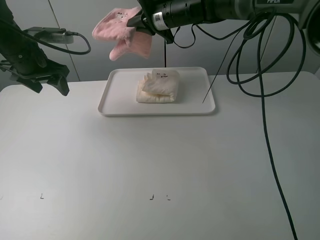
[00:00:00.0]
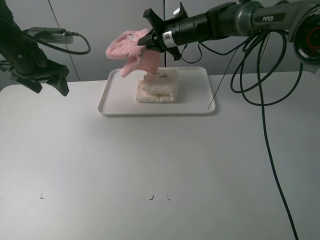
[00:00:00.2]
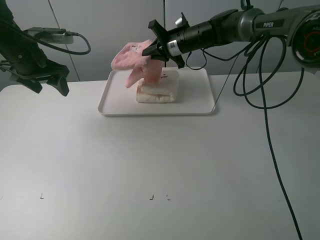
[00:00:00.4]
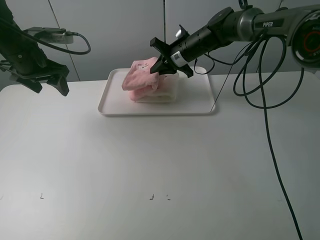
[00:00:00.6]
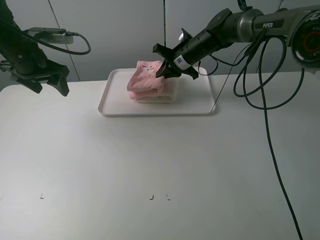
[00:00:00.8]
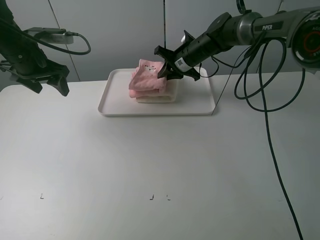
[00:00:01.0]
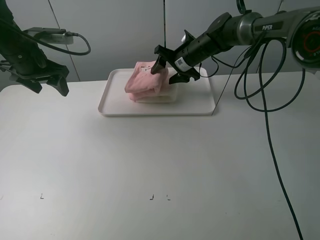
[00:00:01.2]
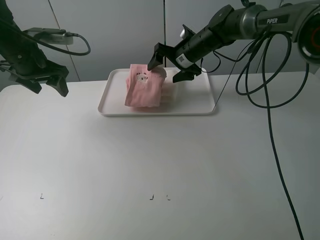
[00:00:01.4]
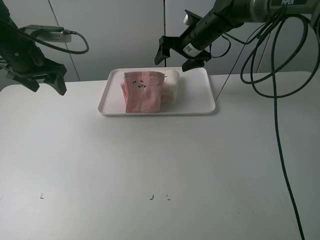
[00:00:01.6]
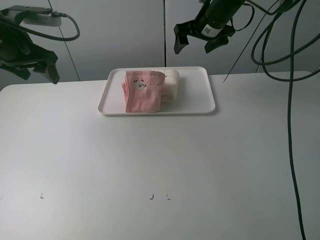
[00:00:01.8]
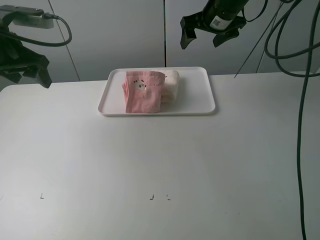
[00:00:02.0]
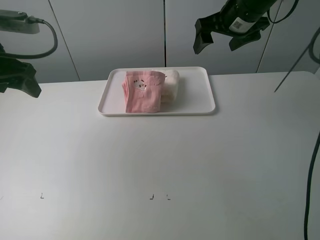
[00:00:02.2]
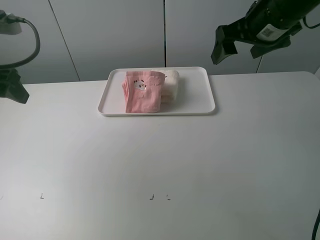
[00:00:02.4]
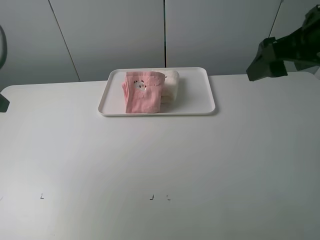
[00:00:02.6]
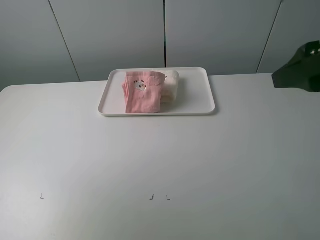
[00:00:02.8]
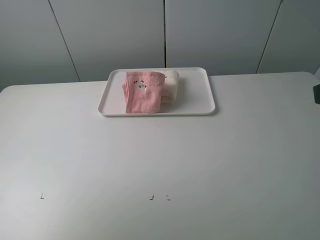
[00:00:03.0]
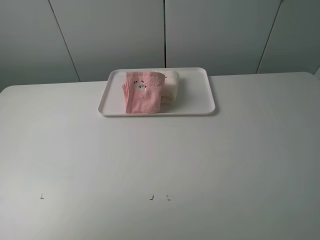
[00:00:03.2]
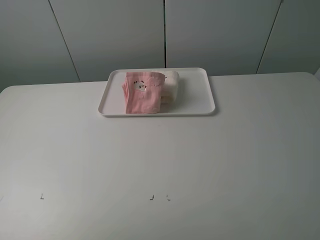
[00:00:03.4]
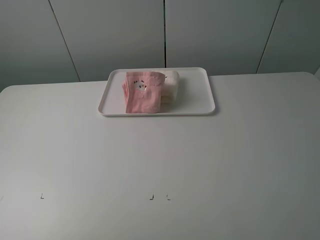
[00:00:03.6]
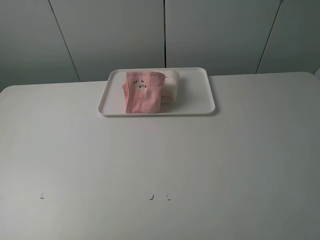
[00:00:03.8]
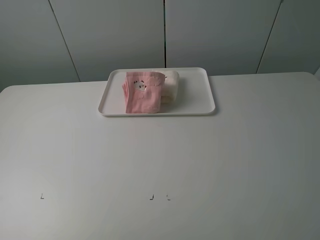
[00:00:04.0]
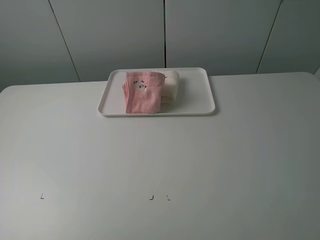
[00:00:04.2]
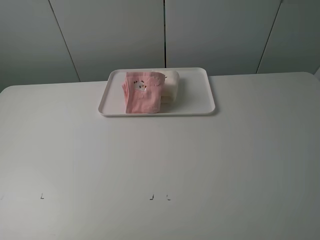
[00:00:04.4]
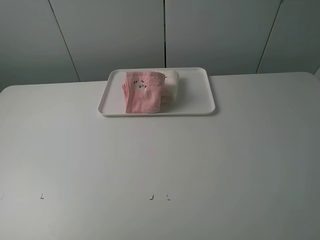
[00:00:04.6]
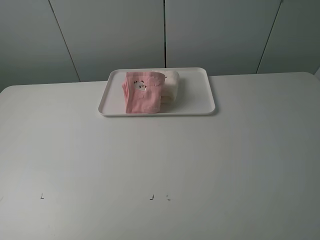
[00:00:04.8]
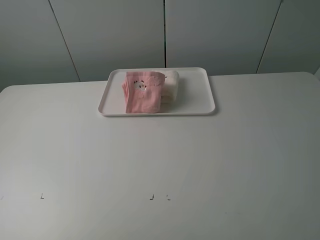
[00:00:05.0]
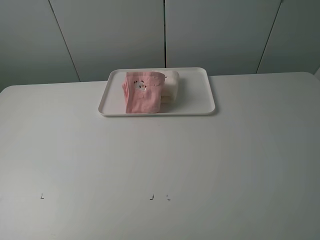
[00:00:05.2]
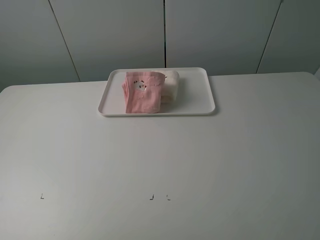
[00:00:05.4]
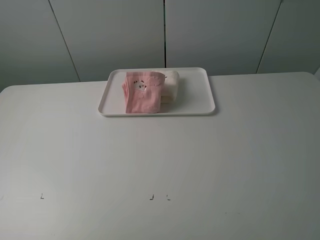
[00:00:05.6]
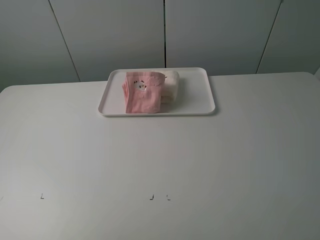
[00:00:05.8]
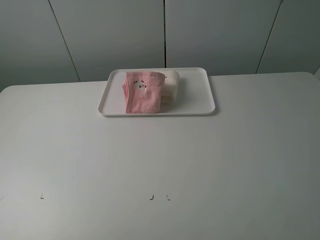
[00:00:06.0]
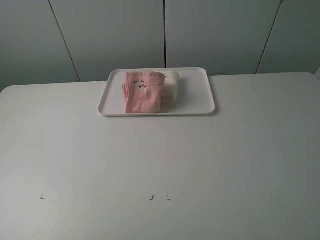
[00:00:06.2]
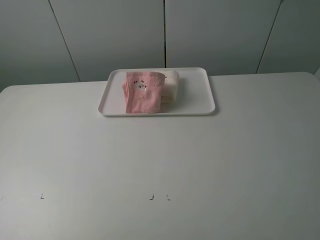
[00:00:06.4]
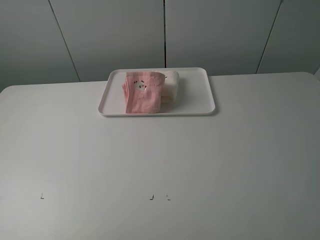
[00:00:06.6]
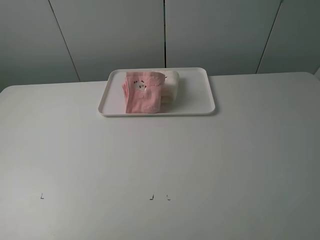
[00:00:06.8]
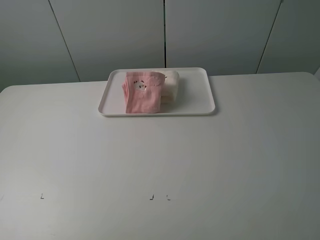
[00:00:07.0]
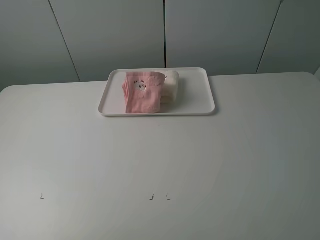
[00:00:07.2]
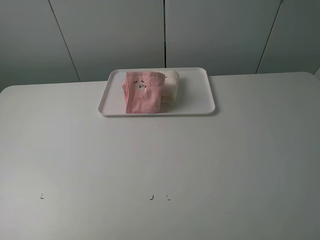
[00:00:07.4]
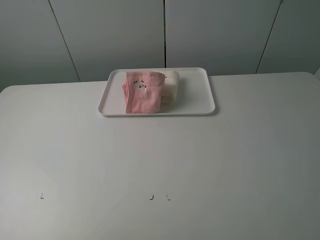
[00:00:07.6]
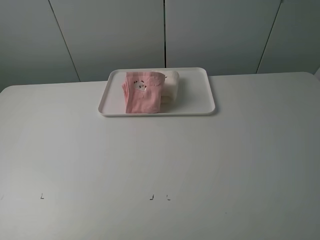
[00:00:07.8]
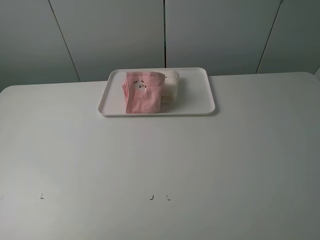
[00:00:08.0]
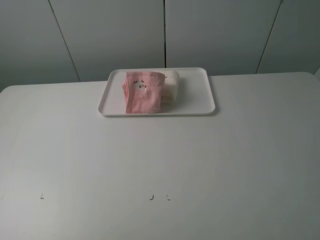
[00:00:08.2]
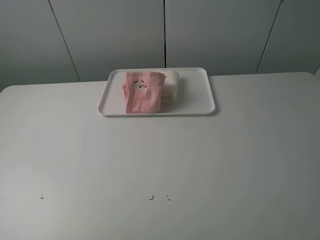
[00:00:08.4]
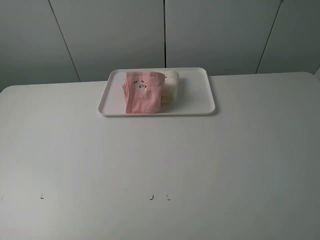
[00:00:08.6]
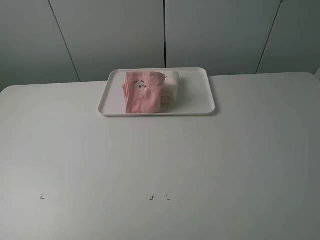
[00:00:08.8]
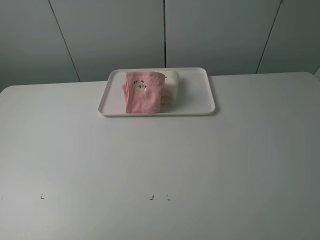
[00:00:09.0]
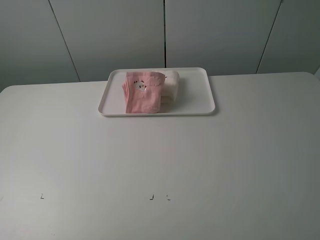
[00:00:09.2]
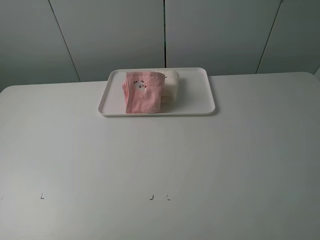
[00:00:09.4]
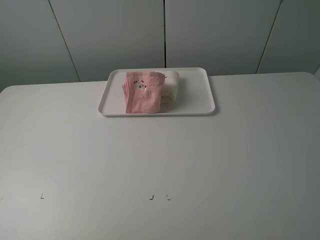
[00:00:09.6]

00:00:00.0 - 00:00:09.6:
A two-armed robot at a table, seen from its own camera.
Task of the whole recording: fold one of the towels by two grippers and place it on the tray,then fold another towel by two grippers and place it on the folded towel.
00:00:00.0 - 00:00:01.6: The right gripper goes roughly 5 cm to the right, and opens its fingers.
00:00:01.6 - 00:00:03.2: The grippers both shift backward by roughly 35 cm.
00:00:08.0 - 00:00:09.6: The two grippers keep their place.
